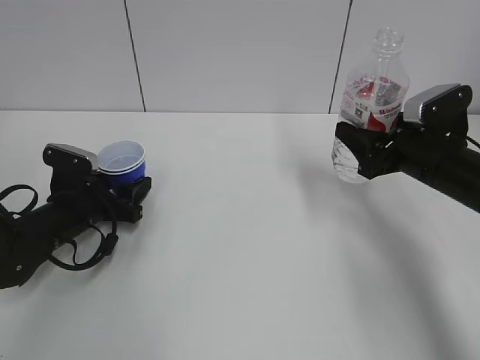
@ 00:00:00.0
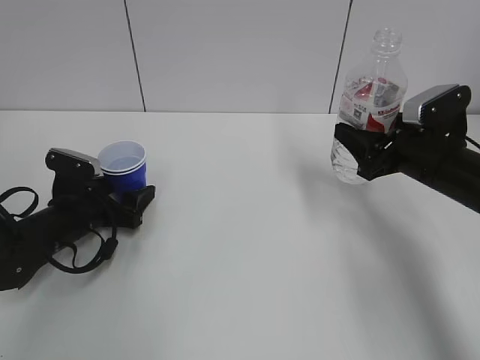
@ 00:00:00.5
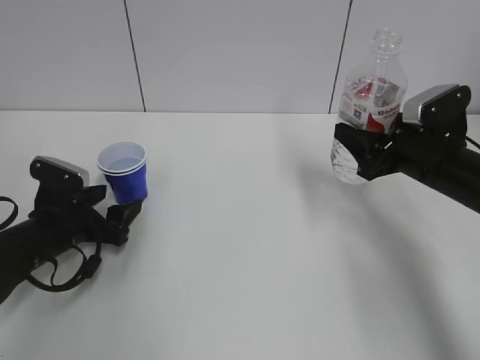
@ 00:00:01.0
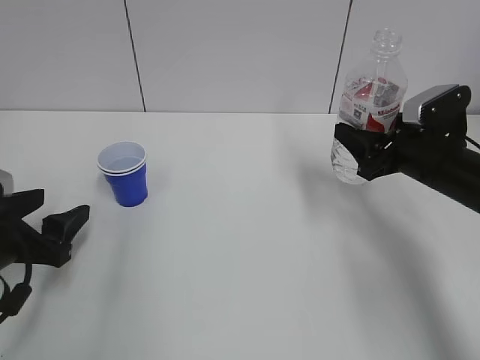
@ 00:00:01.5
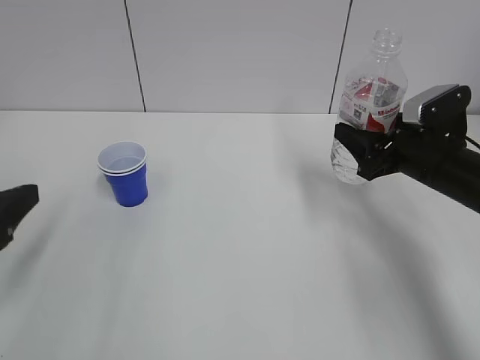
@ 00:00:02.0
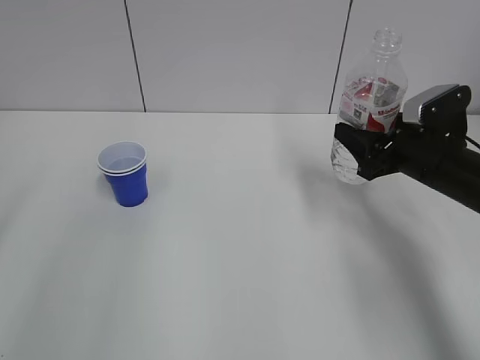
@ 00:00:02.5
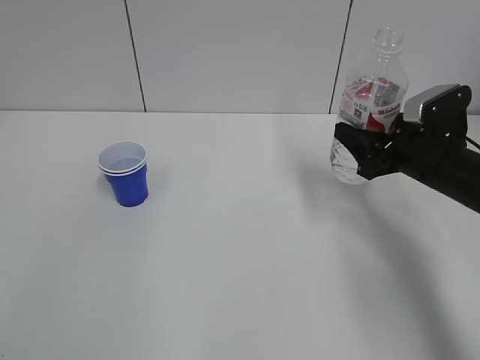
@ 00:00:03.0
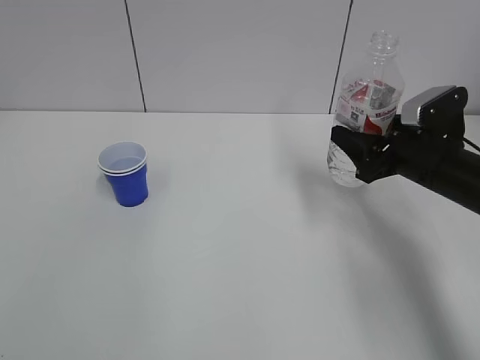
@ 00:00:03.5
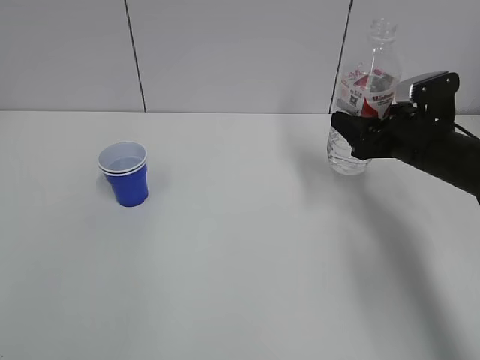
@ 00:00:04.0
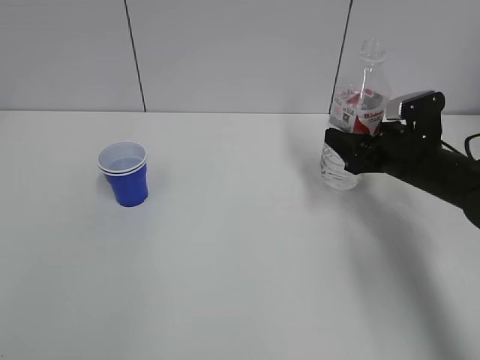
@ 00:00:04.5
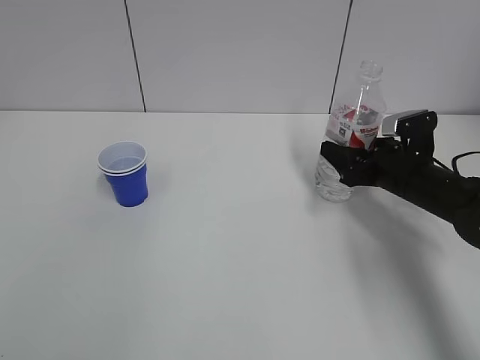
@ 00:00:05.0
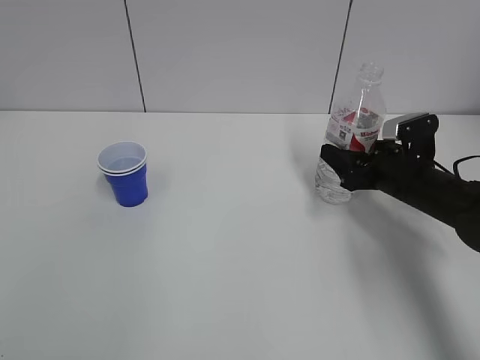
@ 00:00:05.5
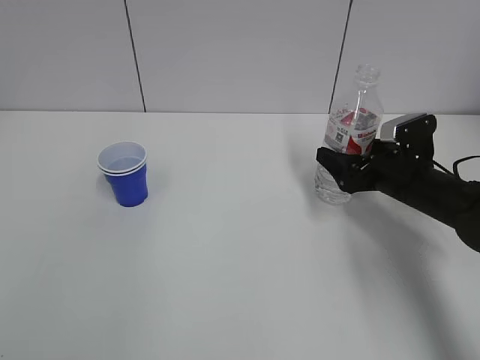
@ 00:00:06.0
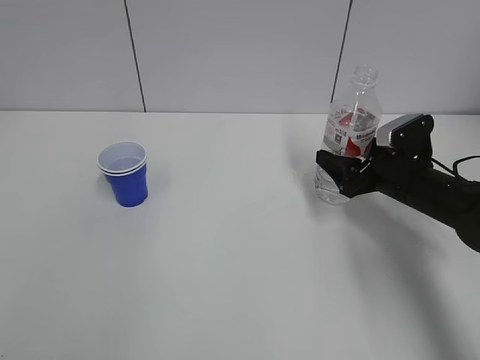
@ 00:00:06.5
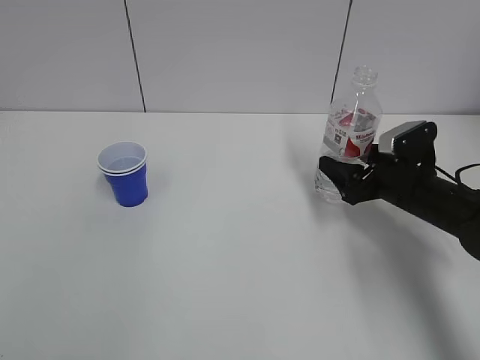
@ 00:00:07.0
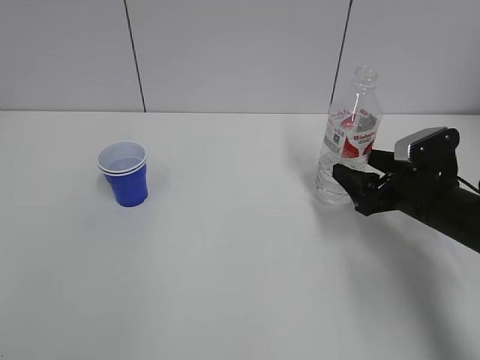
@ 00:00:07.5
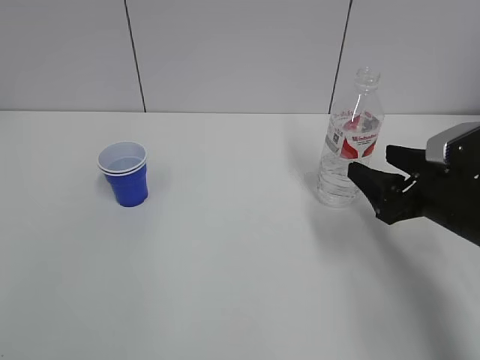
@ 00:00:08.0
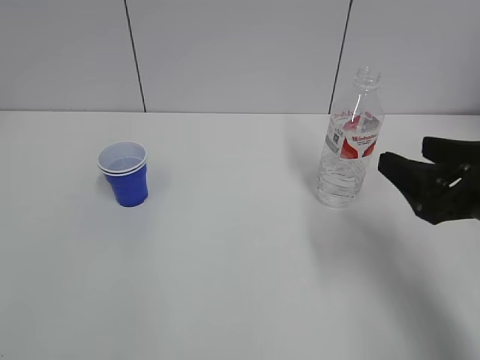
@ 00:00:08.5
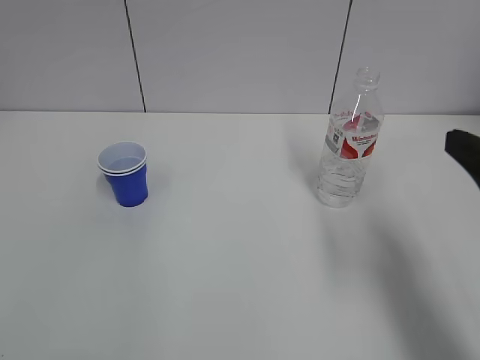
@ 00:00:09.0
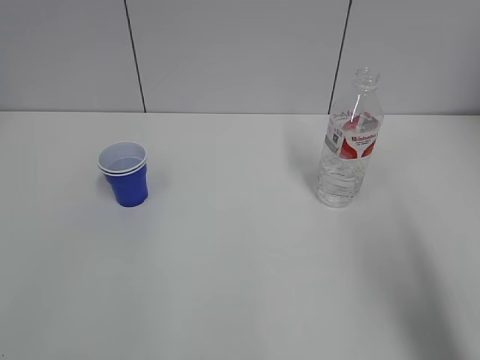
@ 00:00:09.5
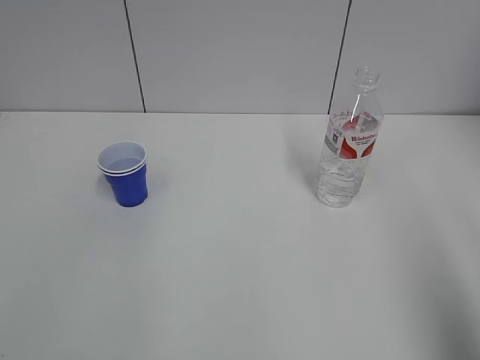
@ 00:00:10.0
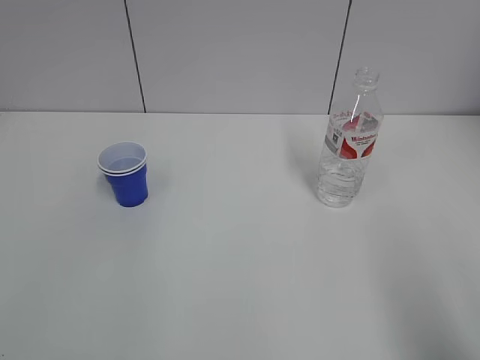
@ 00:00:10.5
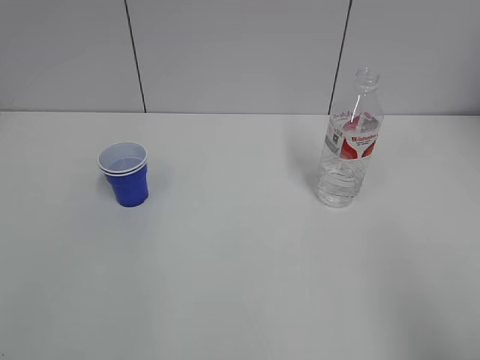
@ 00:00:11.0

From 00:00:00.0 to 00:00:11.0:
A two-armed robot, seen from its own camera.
Step, from 00:00:01.5 to 00:00:07.5: Place the water bottle with the right hand.
From 00:00:00.0 to 00:00:02.0: The left gripper moves backward and upward, approximately 20 cm.
From 00:00:02.0 to 00:00:03.5: The left gripper goes about 20 cm backward and upward.
From 00:00:03.5 to 00:00:05.5: The right gripper moves downward, approximately 5 cm.
From 00:00:05.5 to 00:00:07.5: The right gripper opens up.
From 00:00:07.5 to 00:00:09.0: The right gripper goes about 20 cm upward and backward.
From 00:00:09.0 to 00:00:11.0: The right gripper travels backward by some 20 cm.

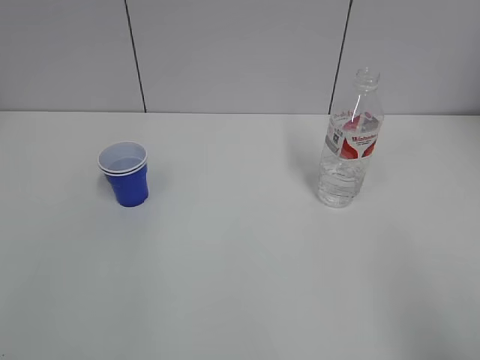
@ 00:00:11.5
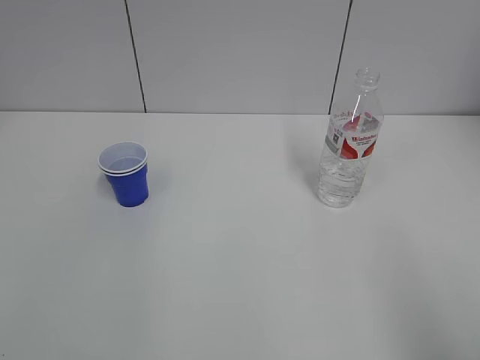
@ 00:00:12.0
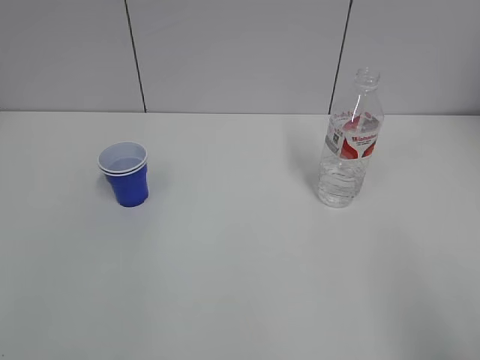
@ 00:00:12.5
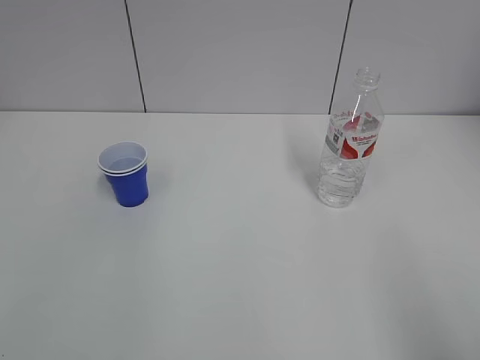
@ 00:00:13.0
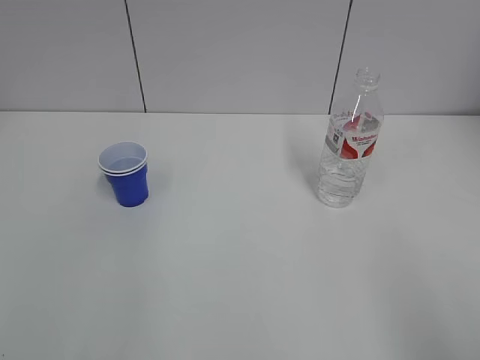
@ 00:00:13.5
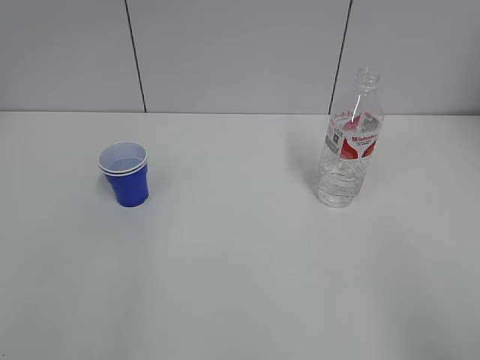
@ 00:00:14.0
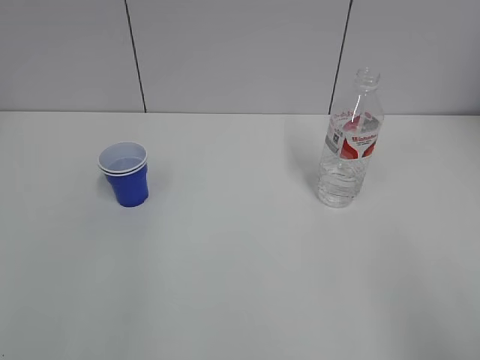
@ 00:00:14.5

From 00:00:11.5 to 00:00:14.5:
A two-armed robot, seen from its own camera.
From 00:00:11.5 to 00:00:13.0: Neither gripper changes place.
